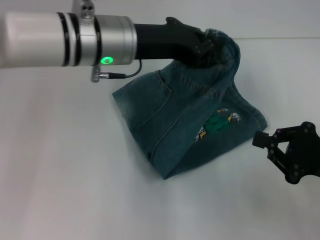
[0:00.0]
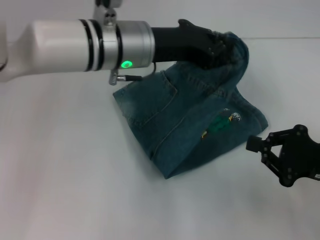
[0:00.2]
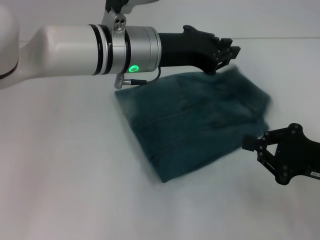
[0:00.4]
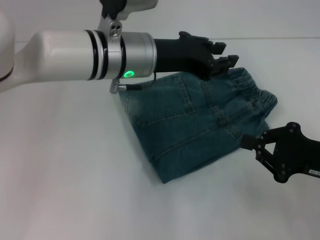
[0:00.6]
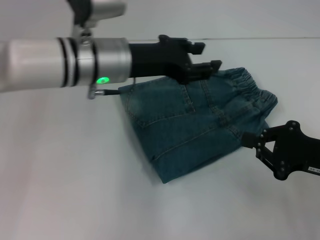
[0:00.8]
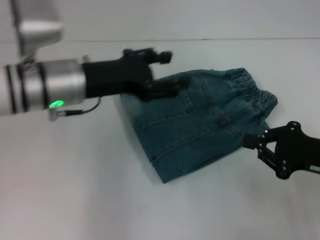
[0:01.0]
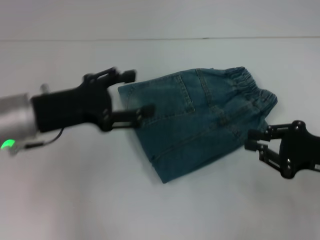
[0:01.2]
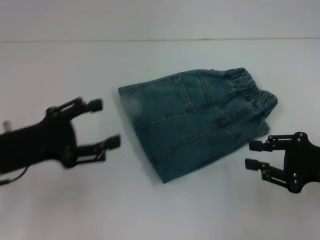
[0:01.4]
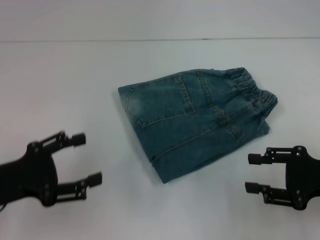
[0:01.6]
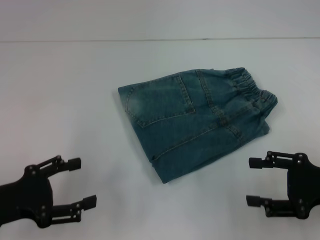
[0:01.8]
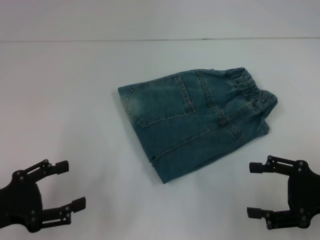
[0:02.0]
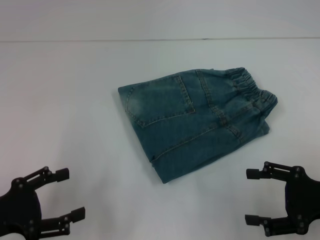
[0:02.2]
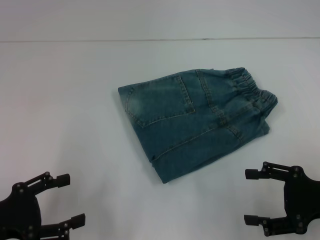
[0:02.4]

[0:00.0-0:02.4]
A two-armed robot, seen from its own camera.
0:00.0 to 0:01.2: The left gripper heads to the left, backward and downward, covering roughly 15 cm, and opens its fingers.
0:01.2 to 0:02.4: The right gripper opens its fingers. The left gripper moves backward, to the left and downward, approximately 15 cm.

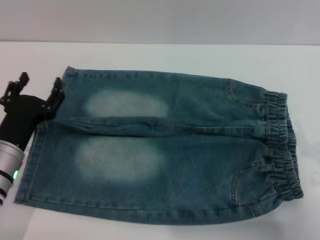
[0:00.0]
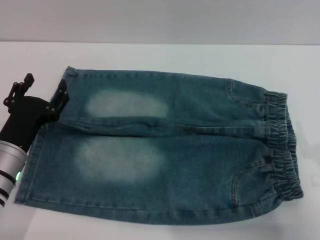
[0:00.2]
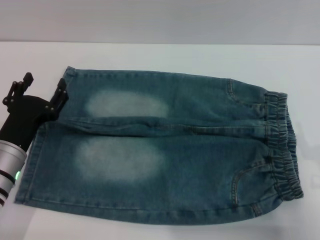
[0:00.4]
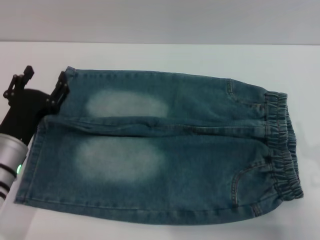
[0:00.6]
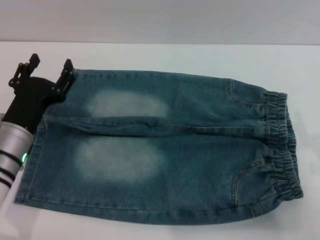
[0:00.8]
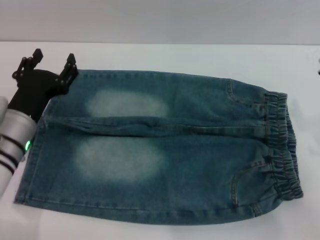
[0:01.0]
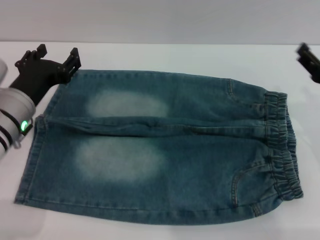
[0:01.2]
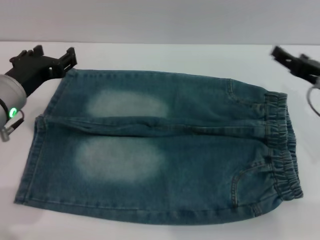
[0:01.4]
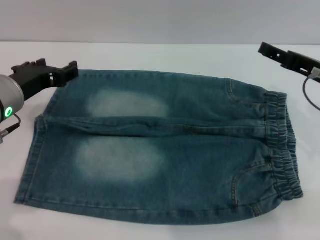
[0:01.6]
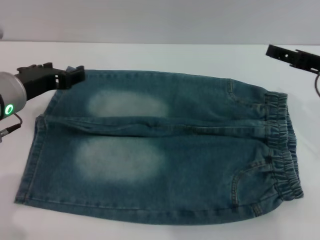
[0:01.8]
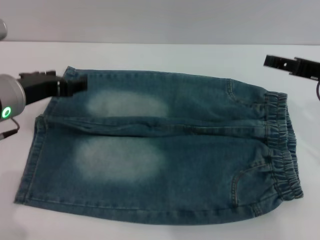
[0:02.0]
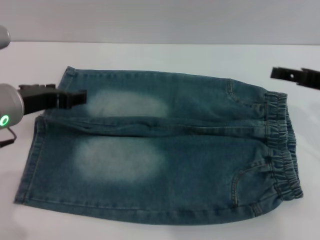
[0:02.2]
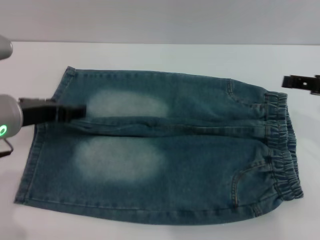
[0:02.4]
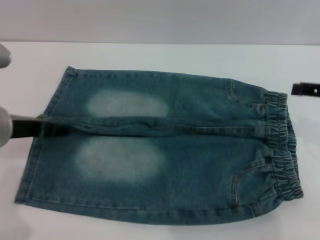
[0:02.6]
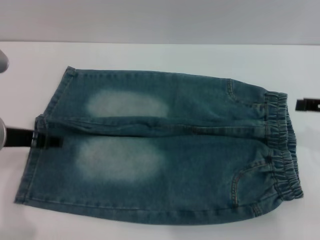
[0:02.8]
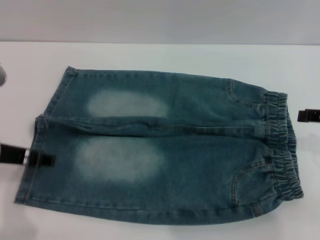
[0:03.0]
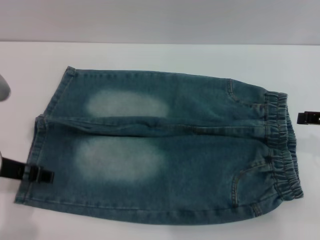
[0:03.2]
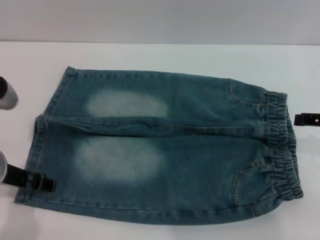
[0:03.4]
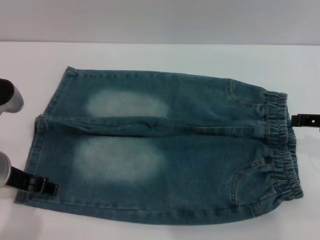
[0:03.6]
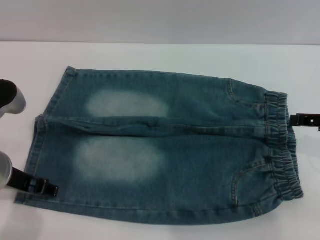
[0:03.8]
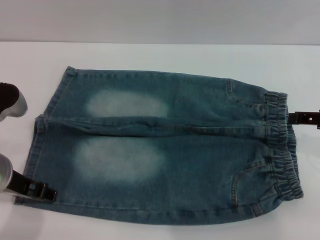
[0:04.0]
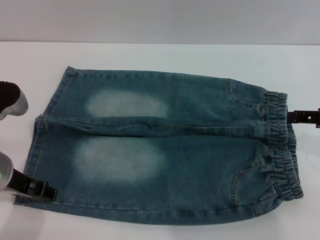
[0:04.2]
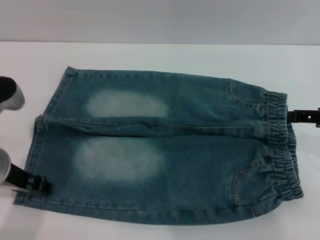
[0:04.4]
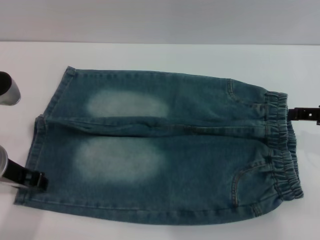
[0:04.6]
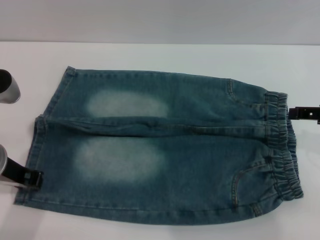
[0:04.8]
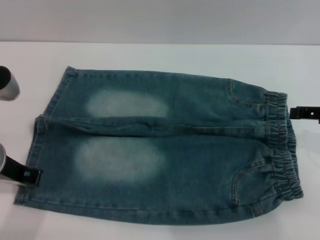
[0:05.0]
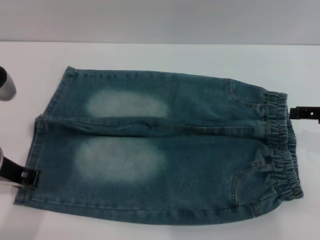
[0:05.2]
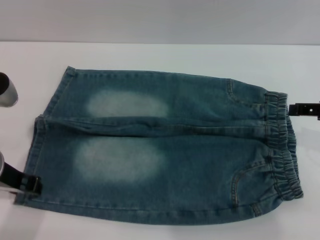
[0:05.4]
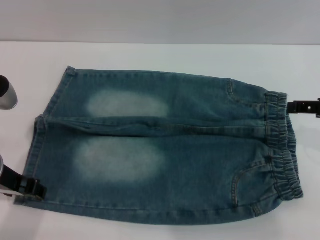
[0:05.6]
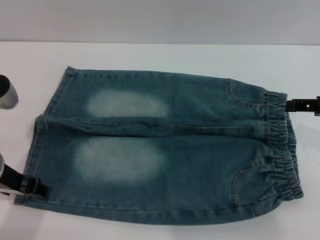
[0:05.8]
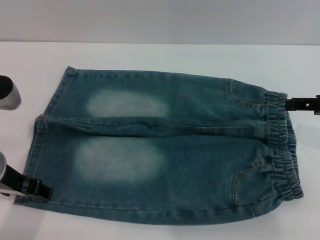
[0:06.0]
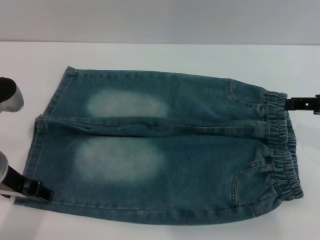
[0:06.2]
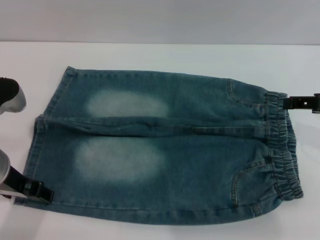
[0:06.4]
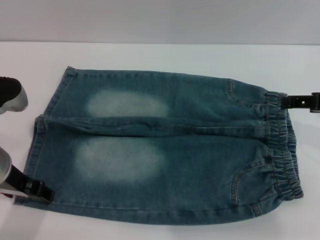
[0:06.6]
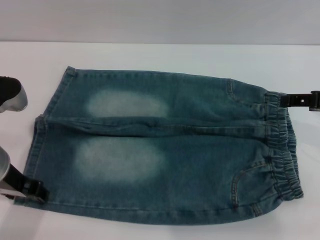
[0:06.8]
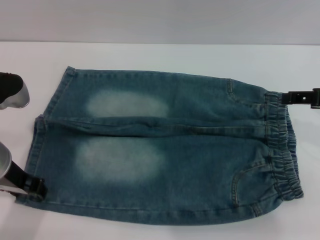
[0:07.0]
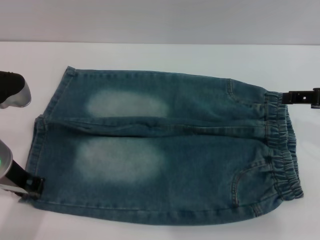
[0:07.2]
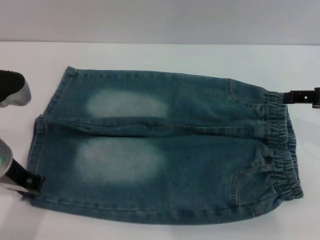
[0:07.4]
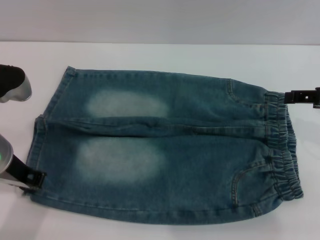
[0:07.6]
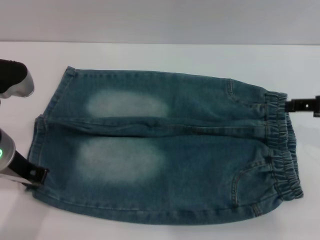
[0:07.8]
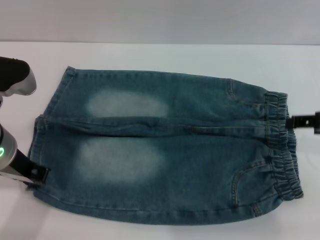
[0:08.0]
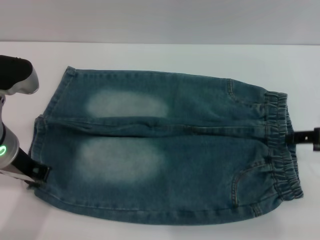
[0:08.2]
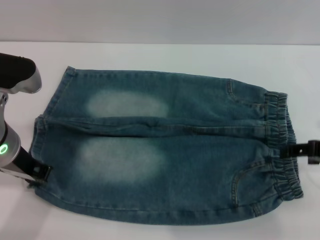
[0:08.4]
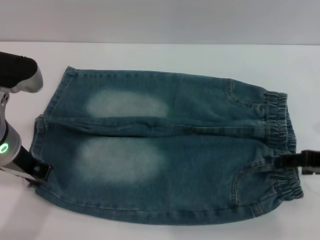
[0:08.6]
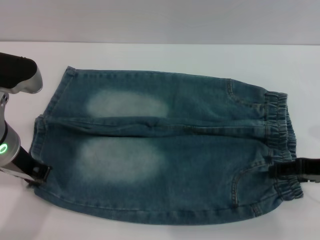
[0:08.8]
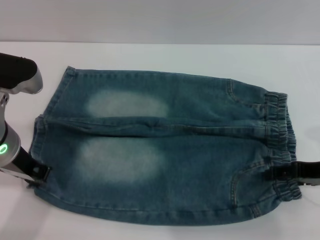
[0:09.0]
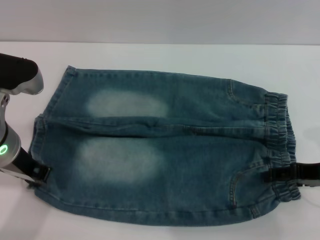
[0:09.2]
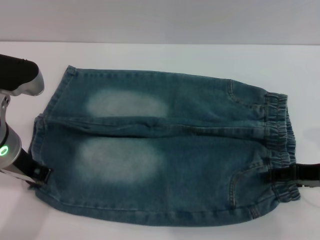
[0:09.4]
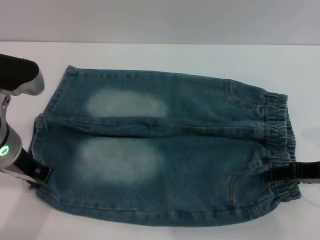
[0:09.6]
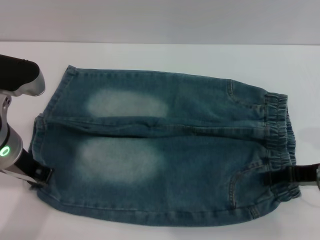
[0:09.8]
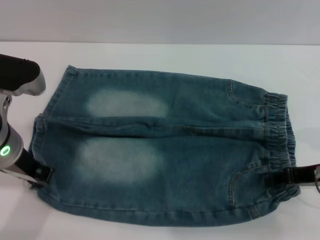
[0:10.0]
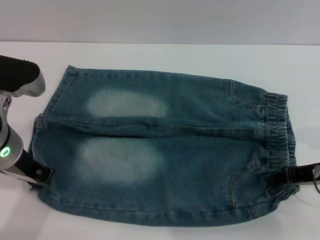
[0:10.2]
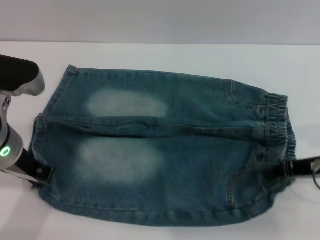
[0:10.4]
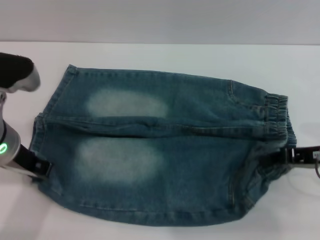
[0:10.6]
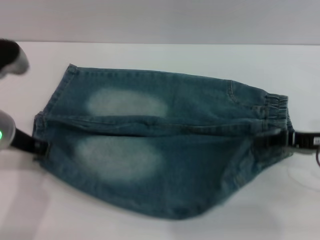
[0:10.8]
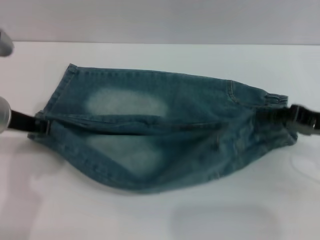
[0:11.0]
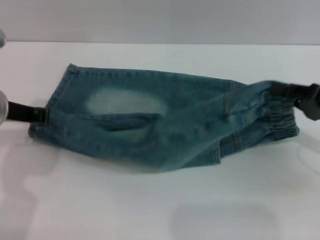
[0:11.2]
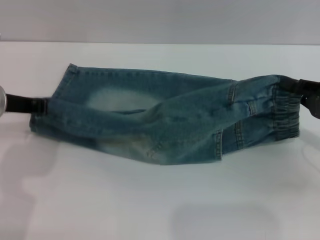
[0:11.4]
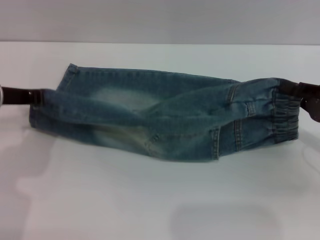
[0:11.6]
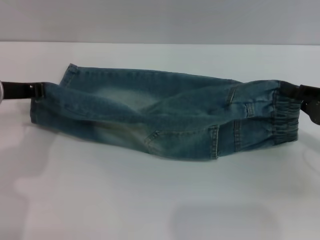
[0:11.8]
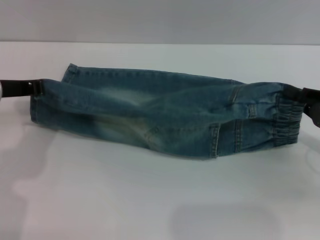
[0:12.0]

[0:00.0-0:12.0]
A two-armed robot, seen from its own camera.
0:00.0 to 0:01.6: The left gripper heads upward, covering about 10 cm; the right gripper moves forward and upward, about 15 cm.
0:01.6 to 0:03.0: The grippers both shift backward by about 5 cm.
0:03.0 to 0:04.4: The grippers move only a little.
0:04.4 to 0:06.0: The left gripper closes, then opens again.
0:06.0 to 0:07.6: The left gripper closes up.
0:07.6 to 0:09.0: The right gripper is displaced downward by approximately 5 cm.
0:09.0 to 0:10.4: The right gripper closes up.
0:10.4 to 0:12.0: The right gripper goes about 5 cm to the right; the left gripper moves some 5 cm.

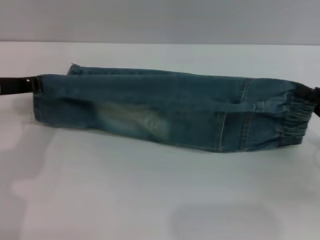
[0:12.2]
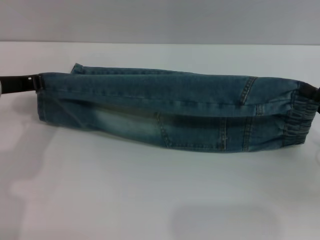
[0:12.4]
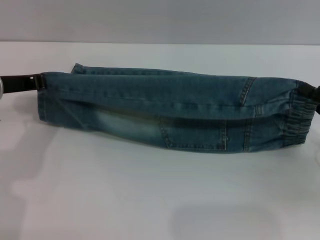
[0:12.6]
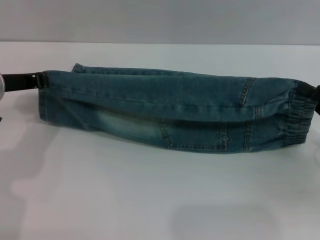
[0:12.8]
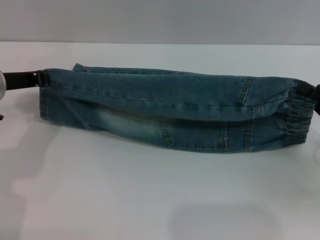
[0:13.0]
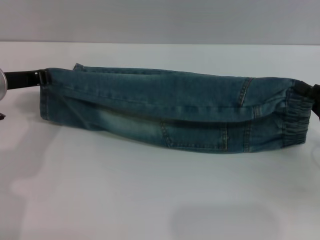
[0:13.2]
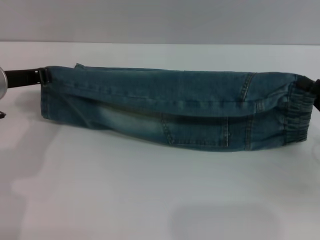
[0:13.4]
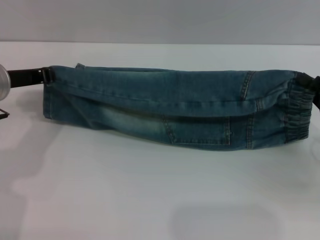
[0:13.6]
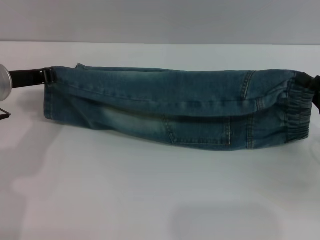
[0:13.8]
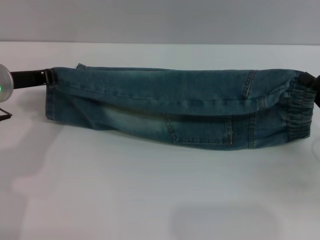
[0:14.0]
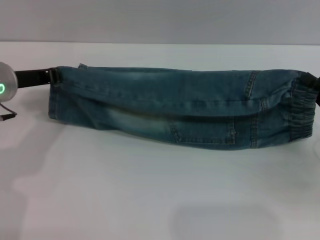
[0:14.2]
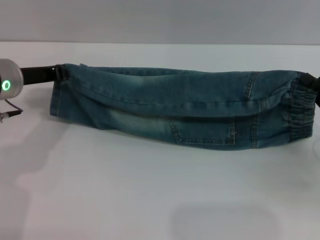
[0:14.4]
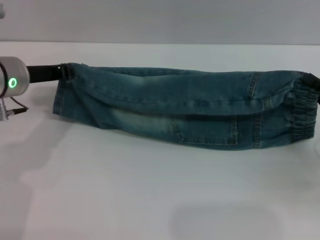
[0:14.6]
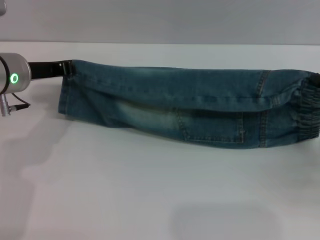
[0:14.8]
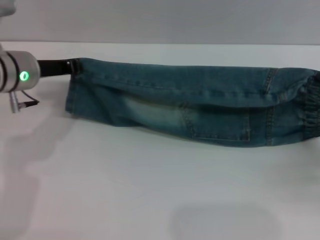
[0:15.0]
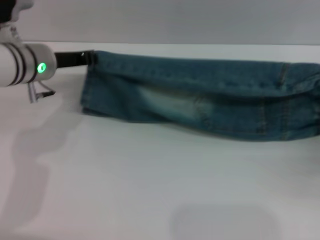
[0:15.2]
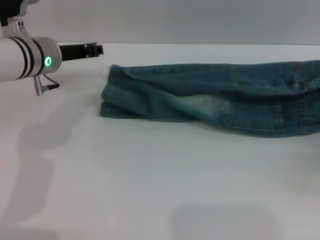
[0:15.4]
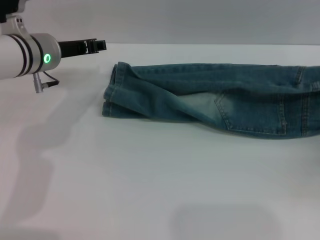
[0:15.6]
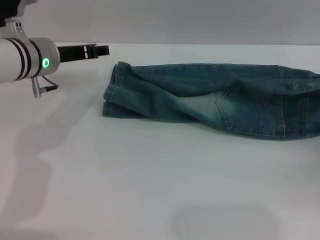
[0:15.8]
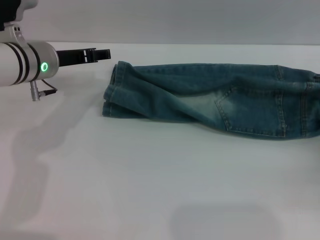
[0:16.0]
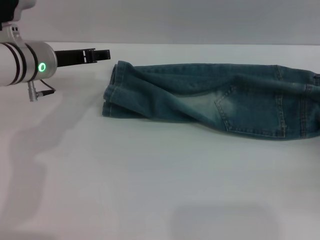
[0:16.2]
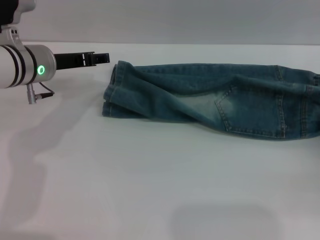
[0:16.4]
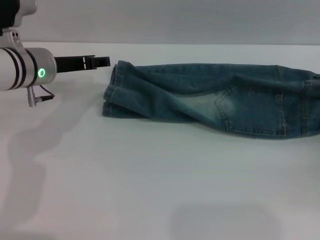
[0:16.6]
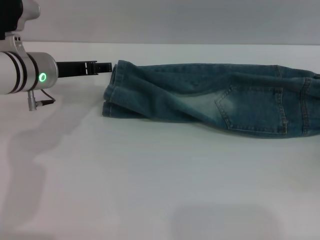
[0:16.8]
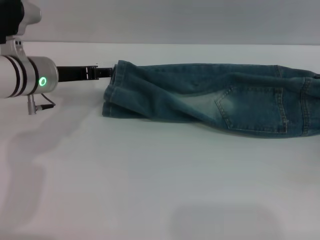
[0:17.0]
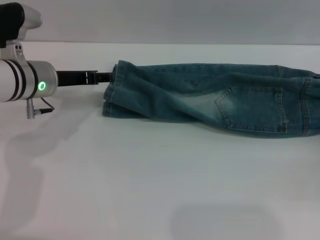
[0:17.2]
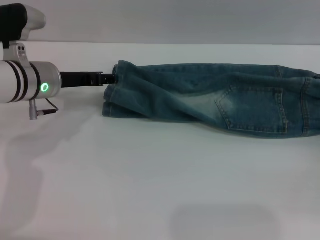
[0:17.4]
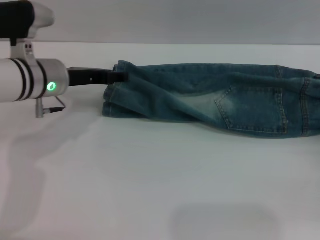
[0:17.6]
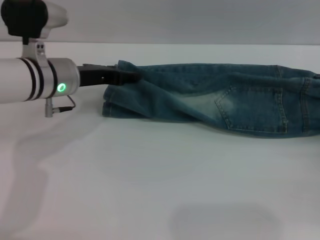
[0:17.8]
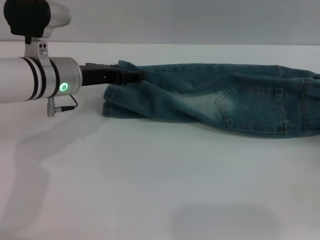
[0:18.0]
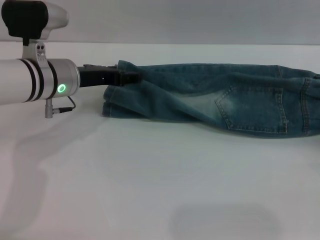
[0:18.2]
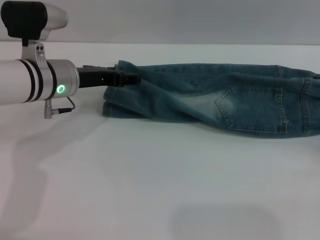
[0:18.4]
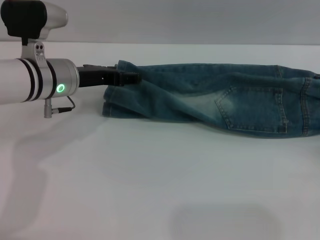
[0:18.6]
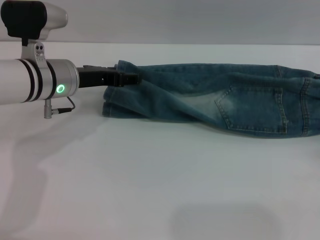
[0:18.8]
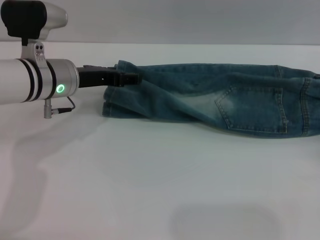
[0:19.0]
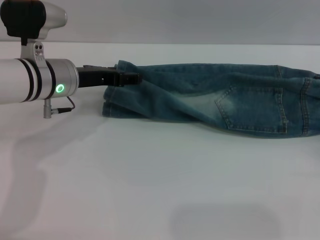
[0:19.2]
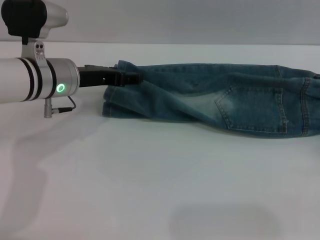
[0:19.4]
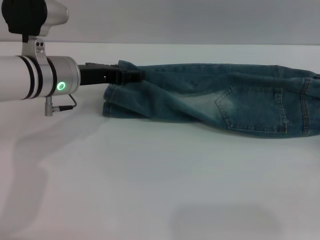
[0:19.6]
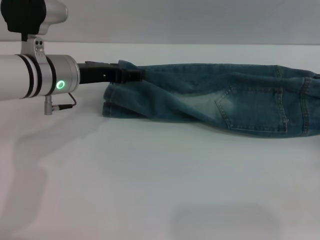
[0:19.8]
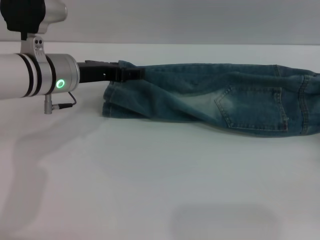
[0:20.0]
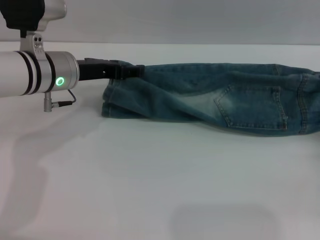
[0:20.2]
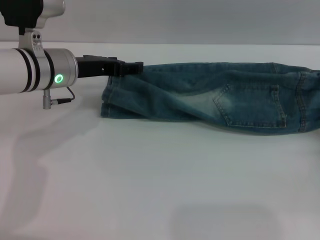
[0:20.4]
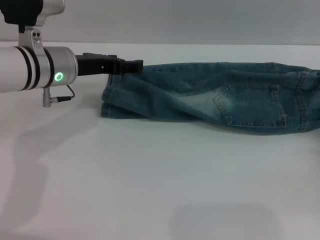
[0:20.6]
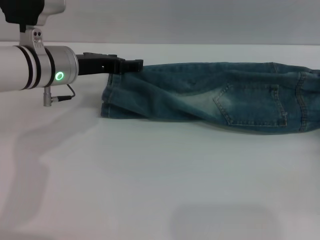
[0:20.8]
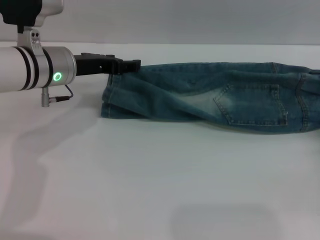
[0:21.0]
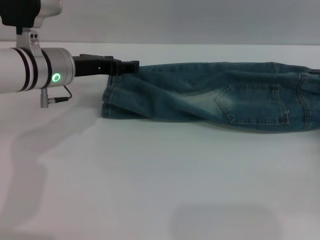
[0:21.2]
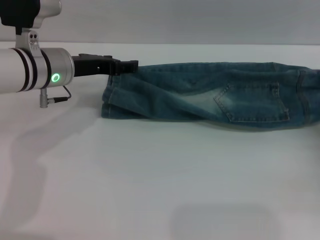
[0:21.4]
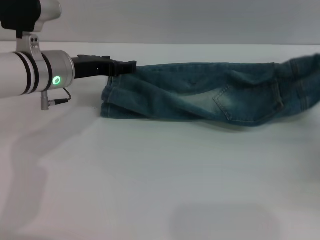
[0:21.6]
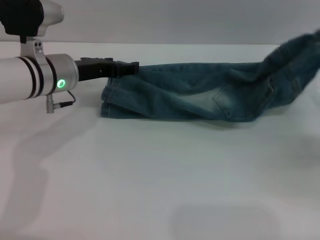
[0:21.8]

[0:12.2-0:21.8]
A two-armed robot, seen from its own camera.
Step, 0:12.2 to 0:15.6: Fold the bottom of the pants upward with both grippers.
0:12.2 to 0:13.8: The grippers make only small movements.
0:13.8 to 0:15.4: The left gripper shifts about 5 cm forward. Meanwhile the right gripper shifts about 5 cm to the right.
0:15.4 to 0:17.0: The left gripper opens; the right gripper opens.
0:18.6 to 0:20.2: The grippers move only a little.
0:20.2 to 0:21.8: The right gripper heads upward, covering about 5 cm, and closes up.
